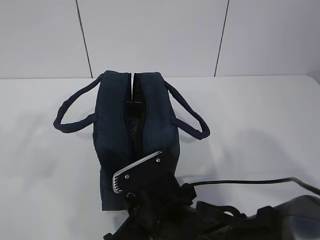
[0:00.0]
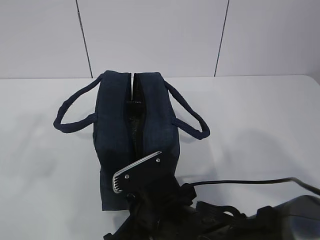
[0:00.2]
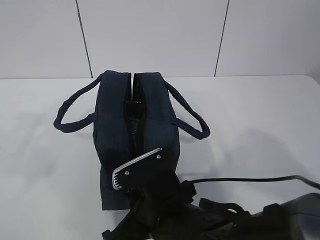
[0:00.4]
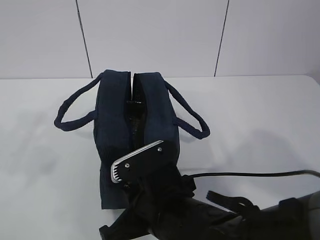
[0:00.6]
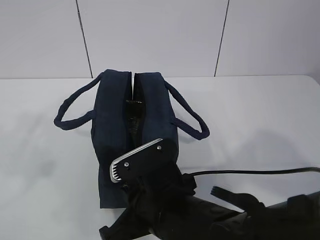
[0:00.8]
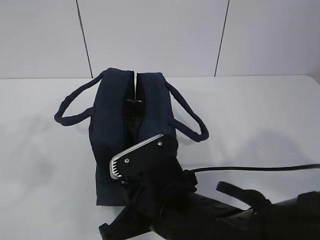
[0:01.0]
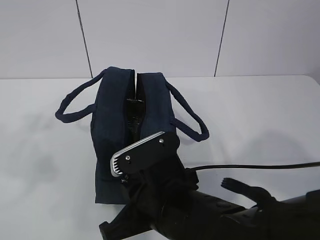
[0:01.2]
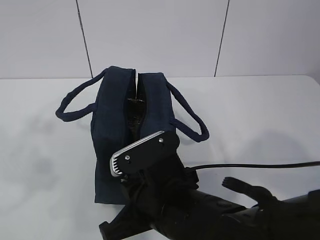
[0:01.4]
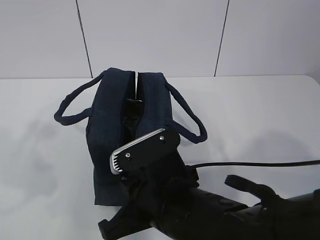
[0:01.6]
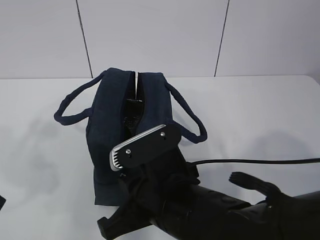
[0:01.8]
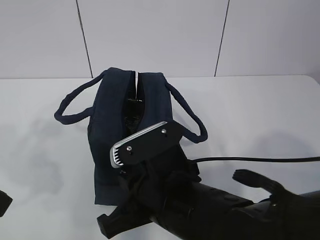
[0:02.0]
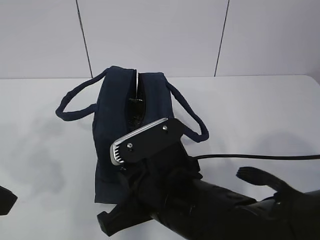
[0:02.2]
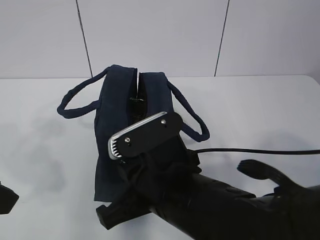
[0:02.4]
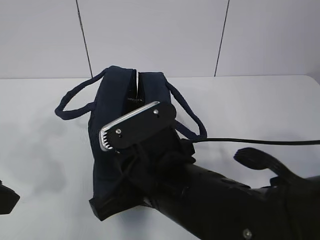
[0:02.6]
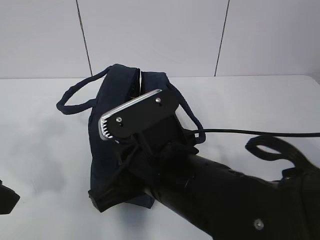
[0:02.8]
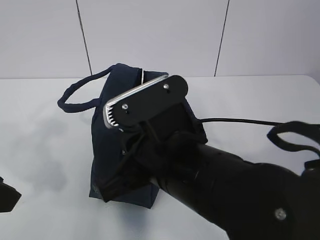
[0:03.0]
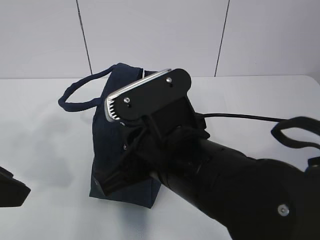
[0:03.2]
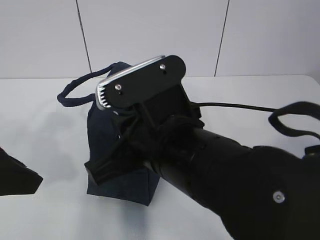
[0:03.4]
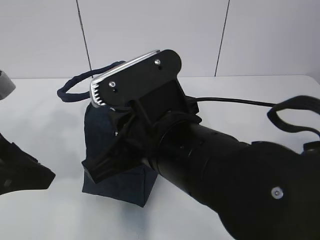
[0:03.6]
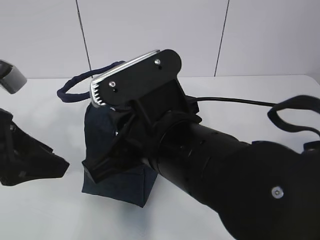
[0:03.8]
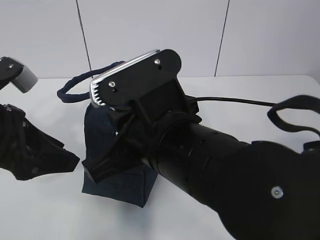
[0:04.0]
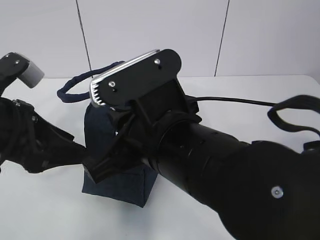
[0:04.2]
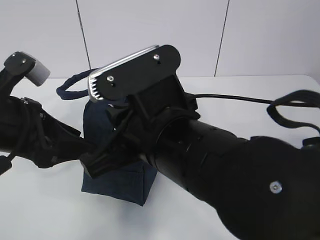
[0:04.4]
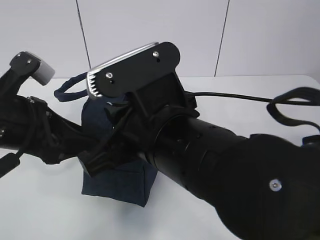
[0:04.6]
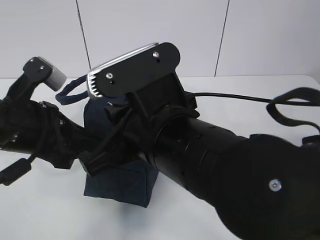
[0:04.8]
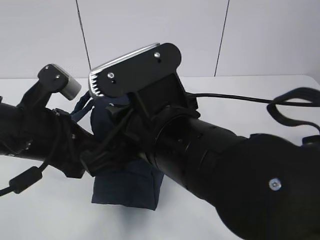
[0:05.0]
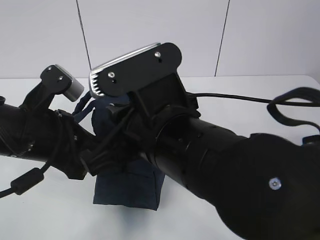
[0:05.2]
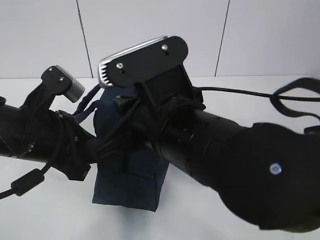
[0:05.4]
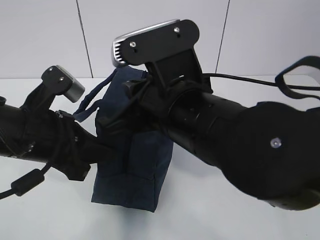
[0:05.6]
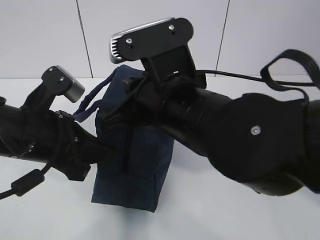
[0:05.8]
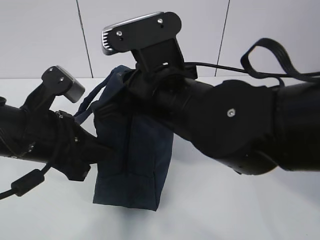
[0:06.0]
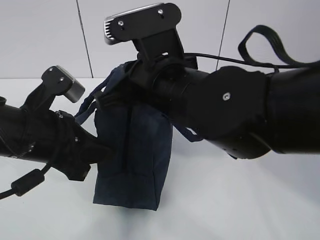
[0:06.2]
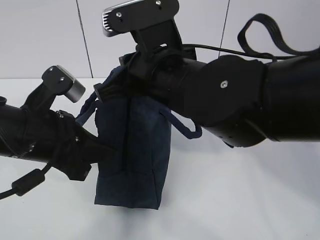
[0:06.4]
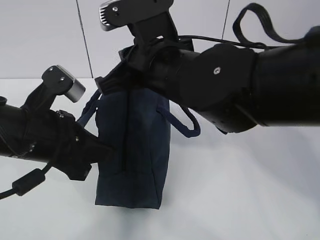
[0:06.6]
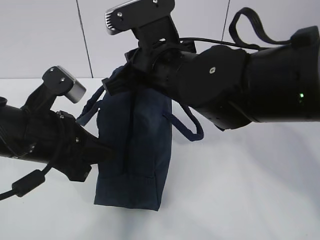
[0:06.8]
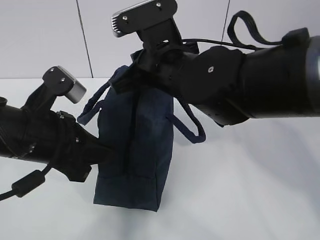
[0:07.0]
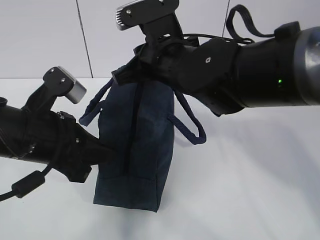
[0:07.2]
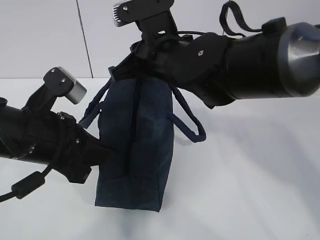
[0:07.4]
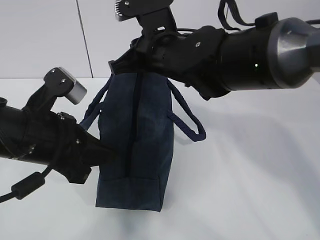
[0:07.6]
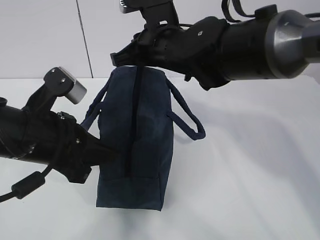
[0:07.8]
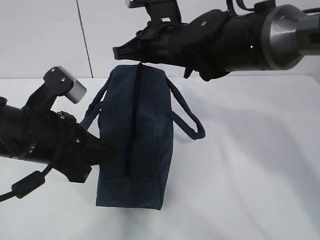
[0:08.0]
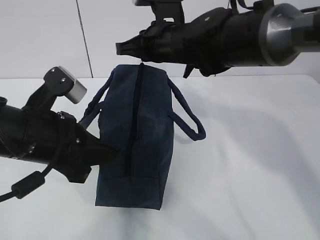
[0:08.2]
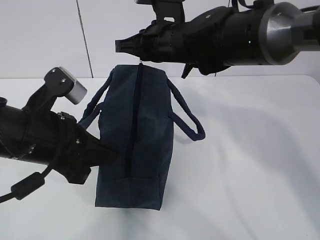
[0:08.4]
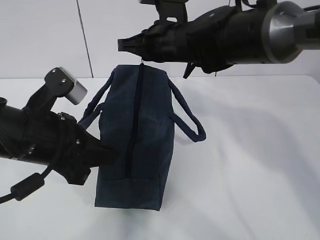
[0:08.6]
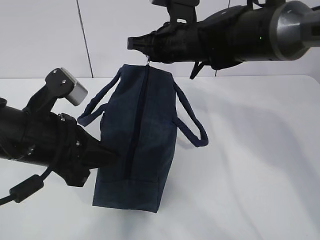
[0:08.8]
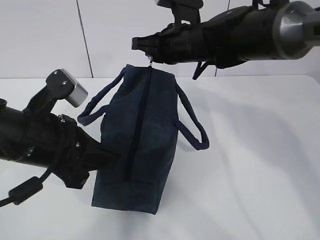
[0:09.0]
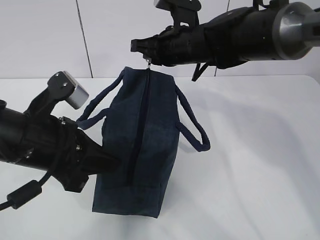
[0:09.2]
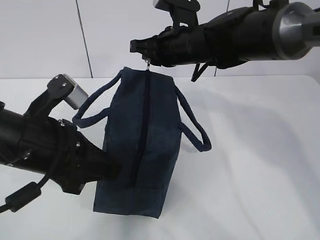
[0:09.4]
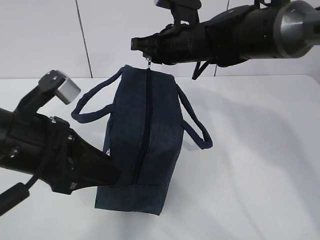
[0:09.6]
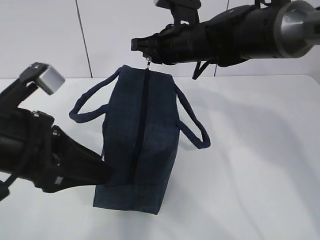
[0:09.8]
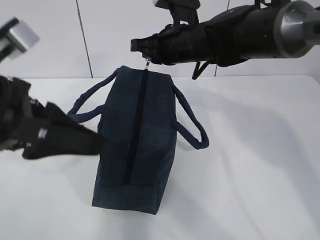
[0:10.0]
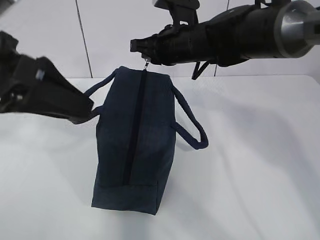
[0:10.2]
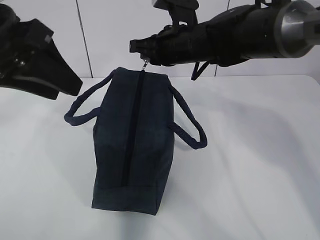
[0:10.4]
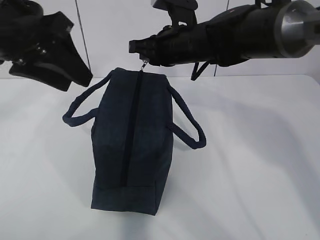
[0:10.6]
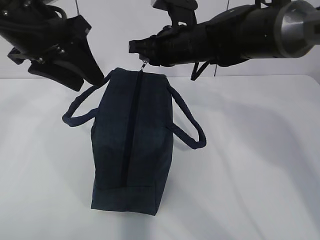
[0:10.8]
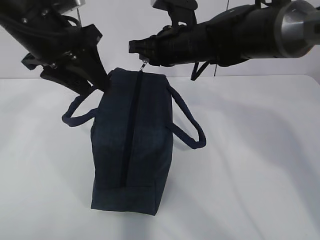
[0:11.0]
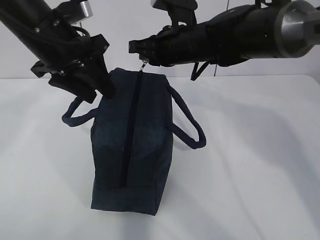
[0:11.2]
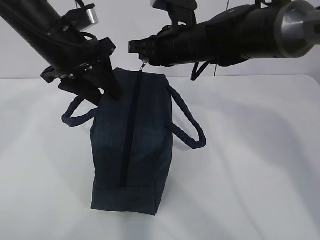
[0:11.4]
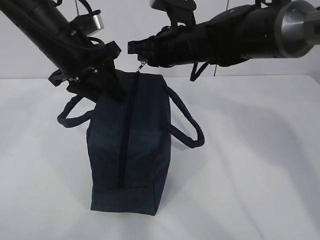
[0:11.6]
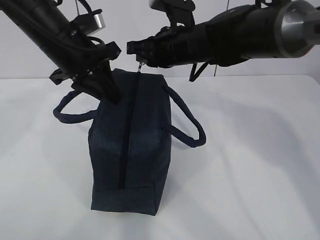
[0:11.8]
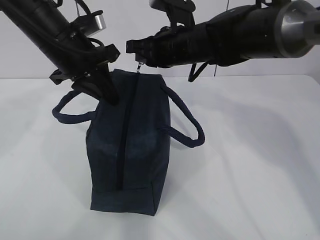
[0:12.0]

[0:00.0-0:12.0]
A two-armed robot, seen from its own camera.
Step, 0:00.0 to 0:02.0: Pull the zipper with your right hand.
0:00.0 to 0:01.6: The left gripper opens up.
0:01.6 to 0:03.0: The right gripper shifts roughly 5 cm upward.
0:03.0 to 0:04.4: The left gripper heads forward, covering about 10 cm.
0:04.4 to 0:06.0: The left gripper closes up. Meanwhile the right gripper travels forward by roughly 5 cm.
0:06.0 to 0:07.6: The right gripper goes some 10 cm forward.
0:07.6 to 0:09.0: The right gripper heads forward, covering approximately 5 cm.
0:09.0 to 0:10.4: The left gripper moves upward, some 15 cm, and opens up.
0:10.4 to 0:12.0: The left gripper moves forward and downward, about 15 cm, and closes its fingers.

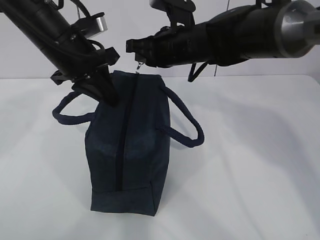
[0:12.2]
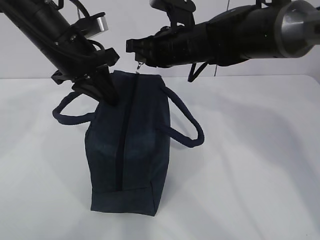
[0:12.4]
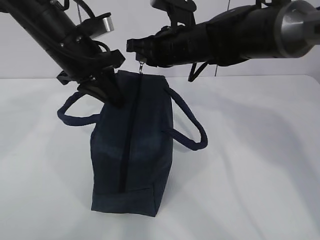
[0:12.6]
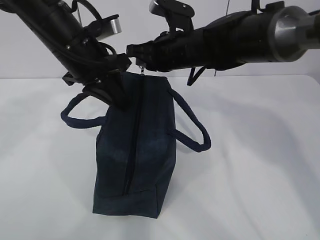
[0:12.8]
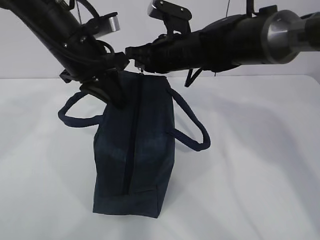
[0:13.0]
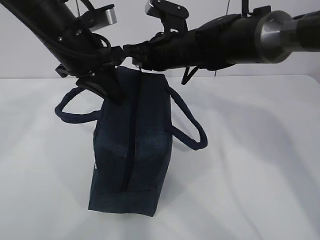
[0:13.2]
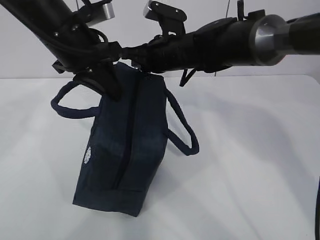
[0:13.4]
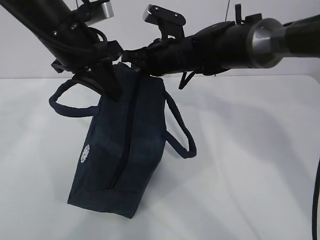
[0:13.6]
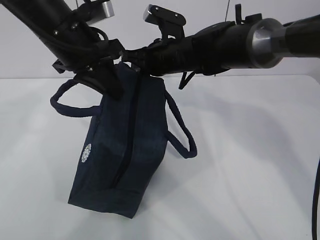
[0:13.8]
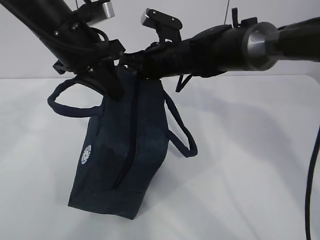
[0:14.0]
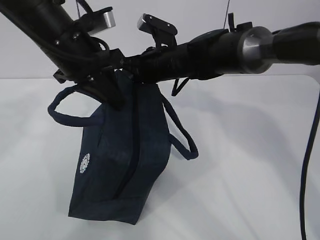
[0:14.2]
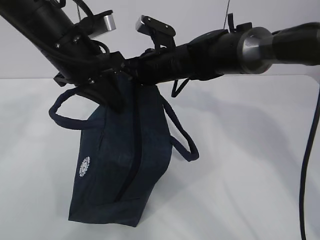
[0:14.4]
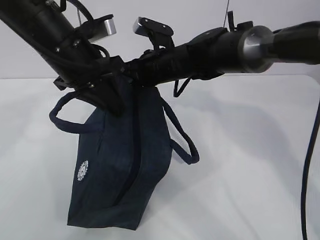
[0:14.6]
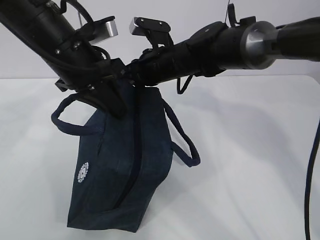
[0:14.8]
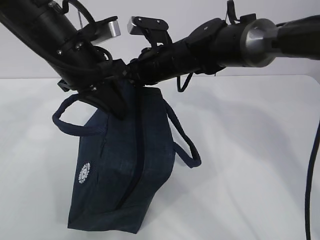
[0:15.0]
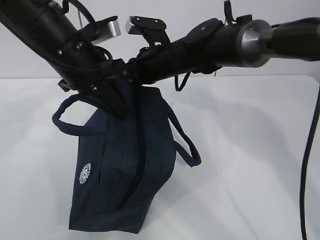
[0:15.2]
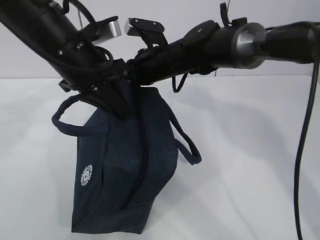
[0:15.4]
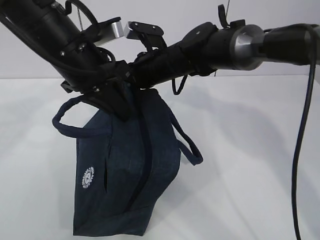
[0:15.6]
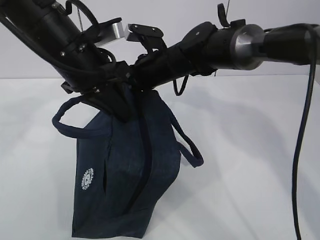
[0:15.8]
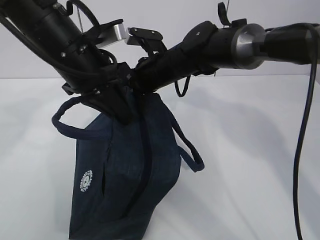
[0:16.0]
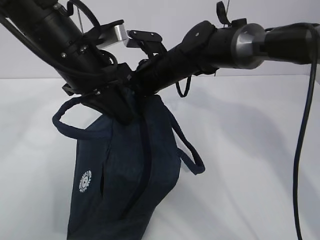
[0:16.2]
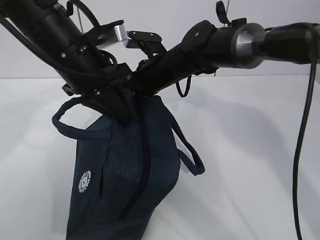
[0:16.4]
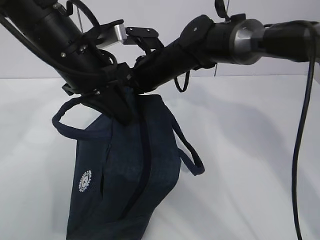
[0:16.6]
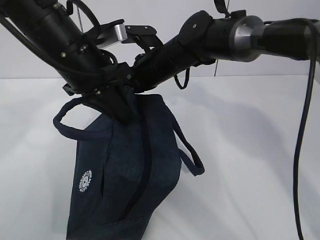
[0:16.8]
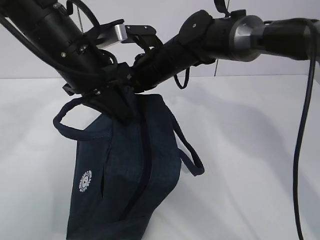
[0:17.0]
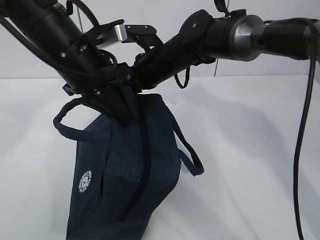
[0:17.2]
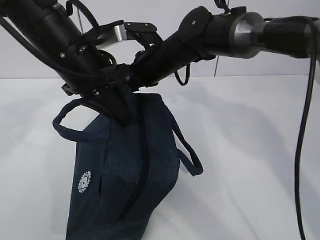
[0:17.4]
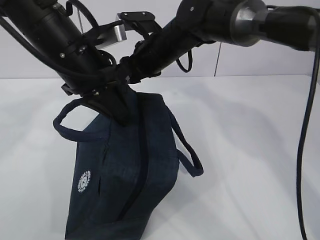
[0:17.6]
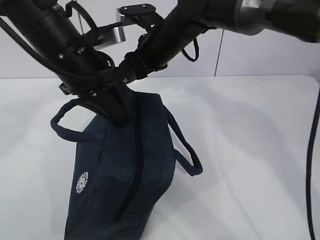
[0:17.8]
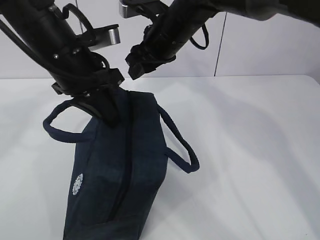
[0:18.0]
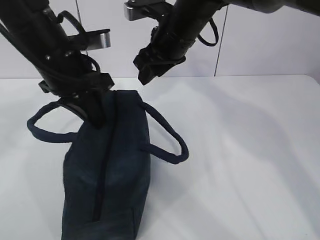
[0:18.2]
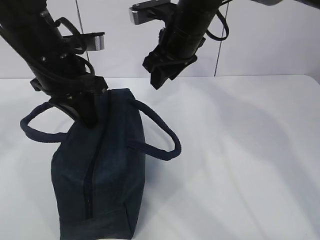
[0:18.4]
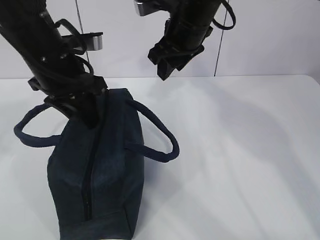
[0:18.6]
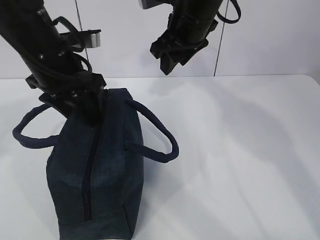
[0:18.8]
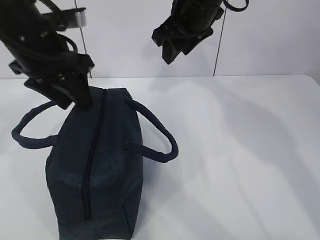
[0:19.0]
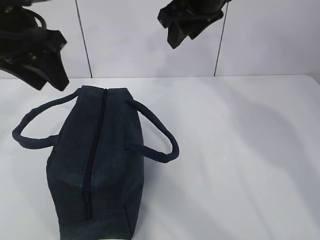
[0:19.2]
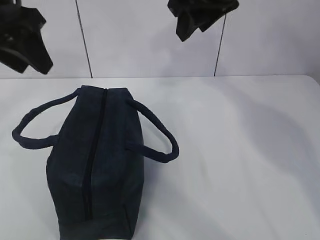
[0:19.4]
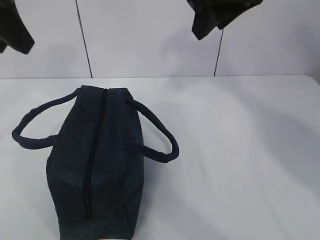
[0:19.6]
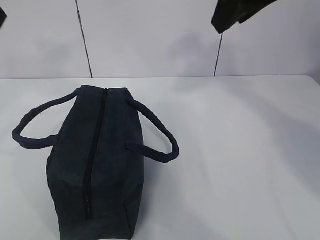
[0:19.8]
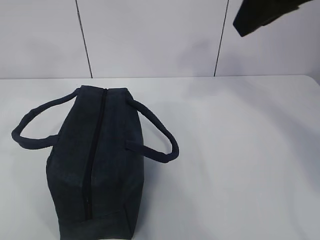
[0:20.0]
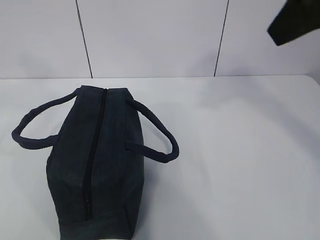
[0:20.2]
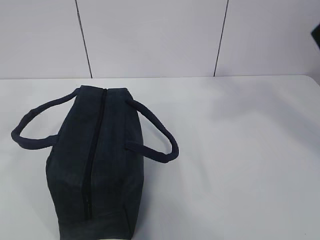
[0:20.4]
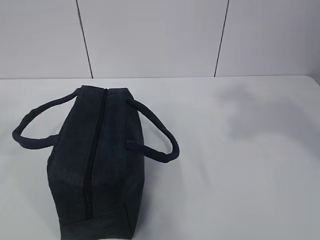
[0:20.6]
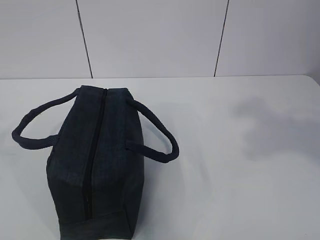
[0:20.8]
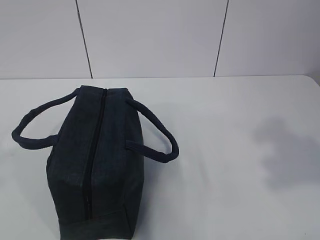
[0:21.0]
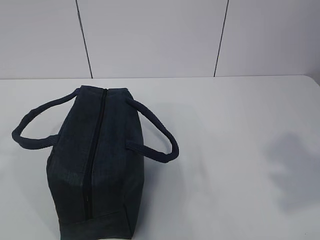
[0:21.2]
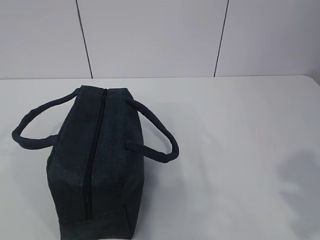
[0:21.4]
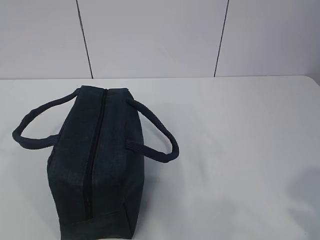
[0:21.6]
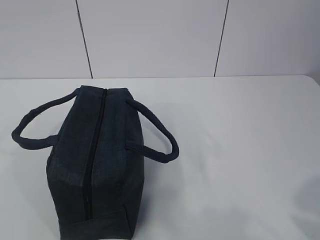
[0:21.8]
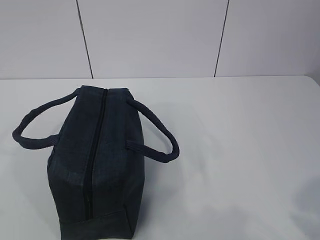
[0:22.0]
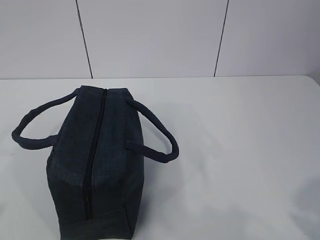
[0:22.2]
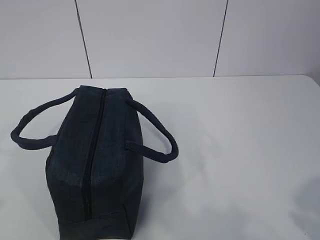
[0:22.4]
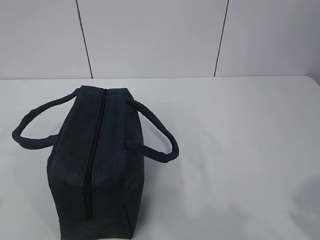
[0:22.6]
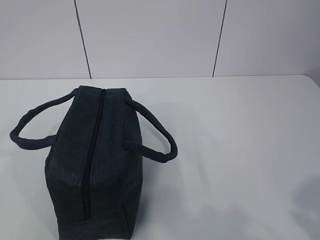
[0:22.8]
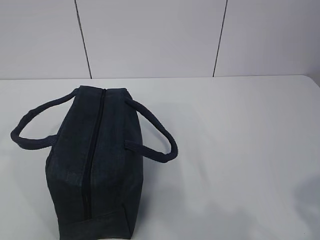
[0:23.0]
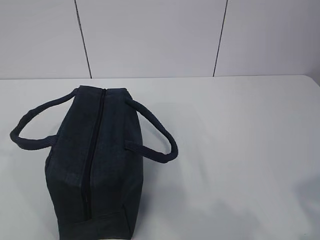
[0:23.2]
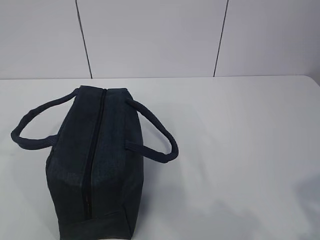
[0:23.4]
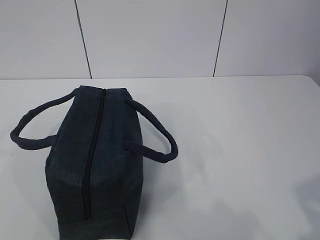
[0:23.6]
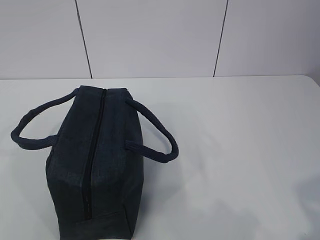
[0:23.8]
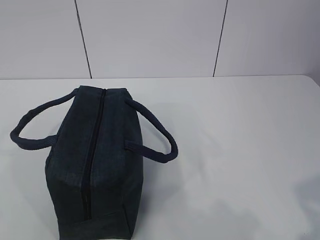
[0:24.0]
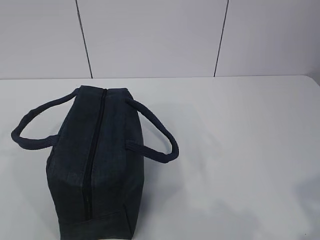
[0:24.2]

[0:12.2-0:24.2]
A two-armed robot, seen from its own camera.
0:15.2 to 0:16.6: There are only small adjustments of the grippers.
0:16.6 to 0:18.2: The right gripper heads upward, covering approximately 10 cm, and opens.
0:18.2 to 0:19.8: The right gripper moves upward, backward and to the right, some 20 cm. The left gripper goes about 20 cm upward, backward and to the left, and opens.
0:19.8 to 0:21.2: The right gripper goes about 30 cm backward and to the right.
0:21.2 to 0:22.6: The right gripper travels downward by about 10 cm.
